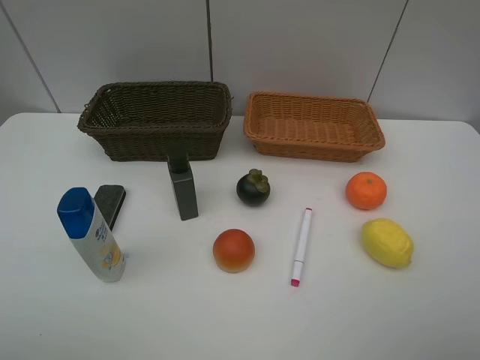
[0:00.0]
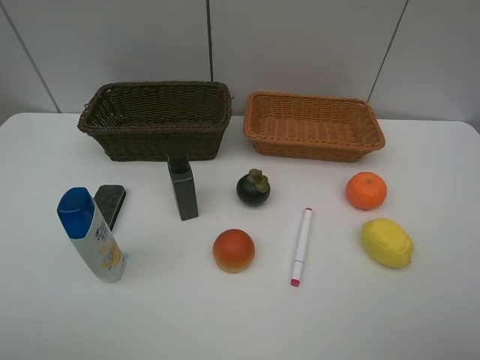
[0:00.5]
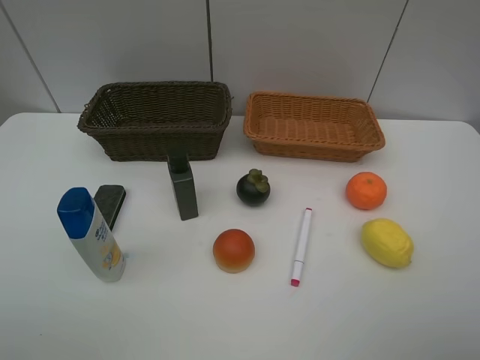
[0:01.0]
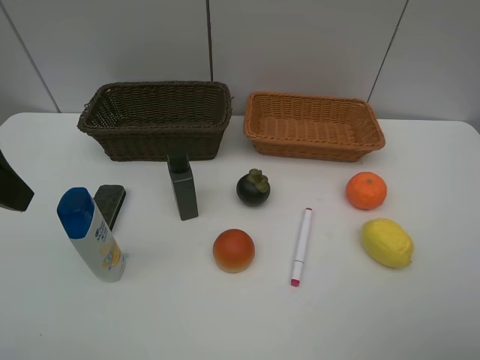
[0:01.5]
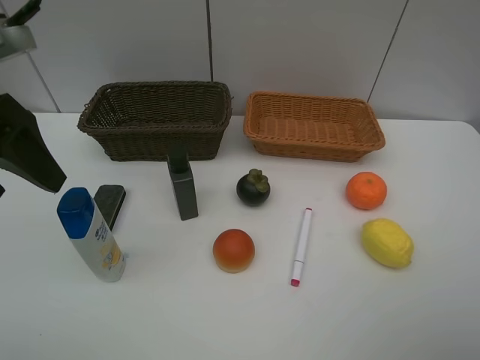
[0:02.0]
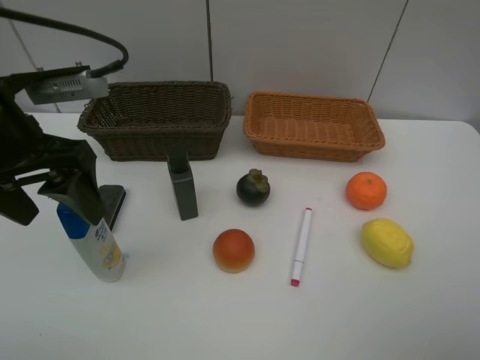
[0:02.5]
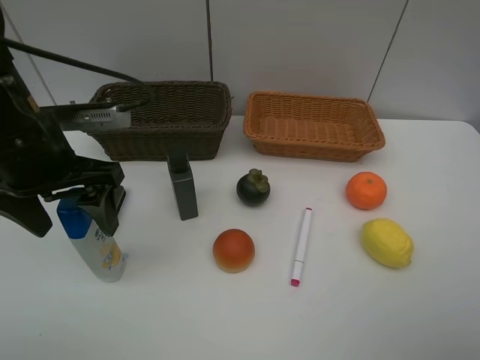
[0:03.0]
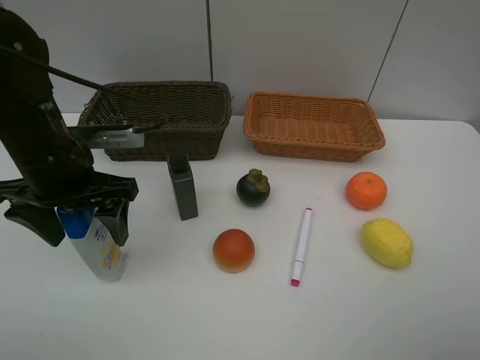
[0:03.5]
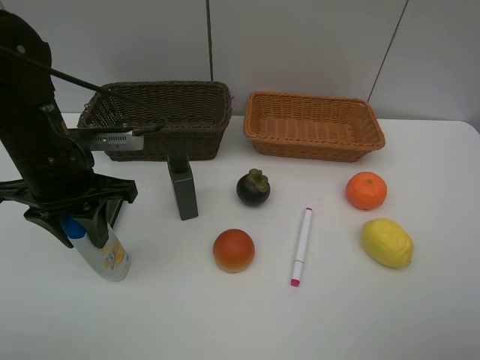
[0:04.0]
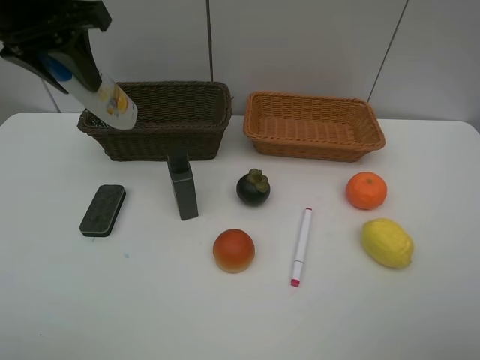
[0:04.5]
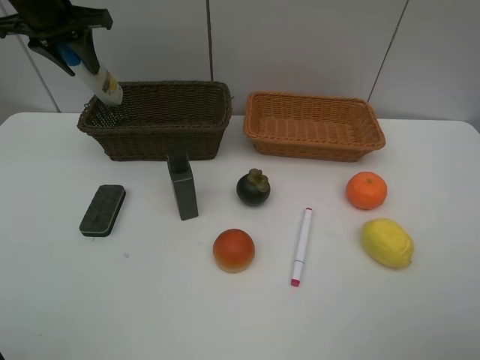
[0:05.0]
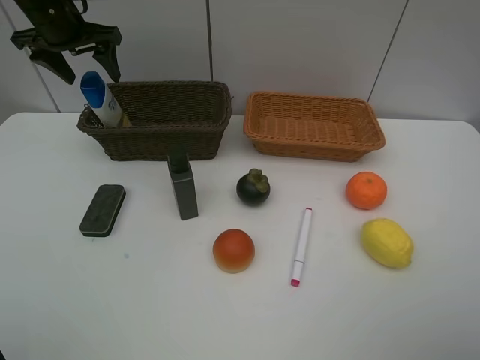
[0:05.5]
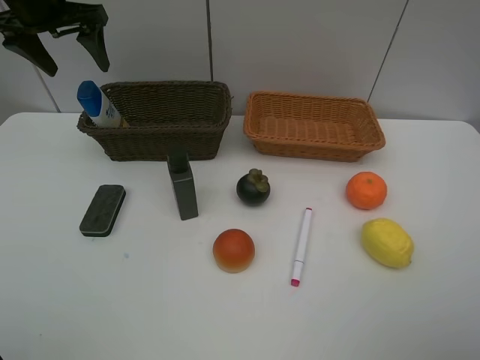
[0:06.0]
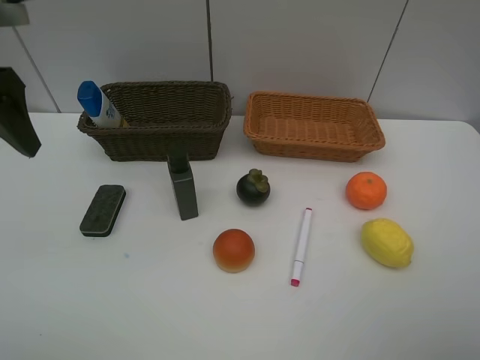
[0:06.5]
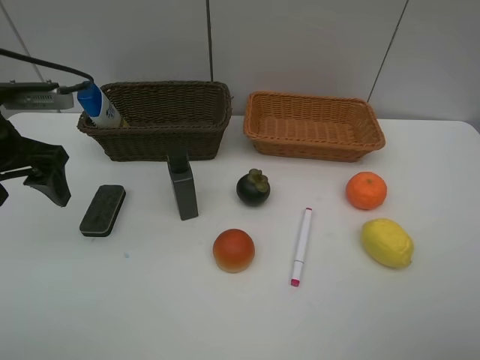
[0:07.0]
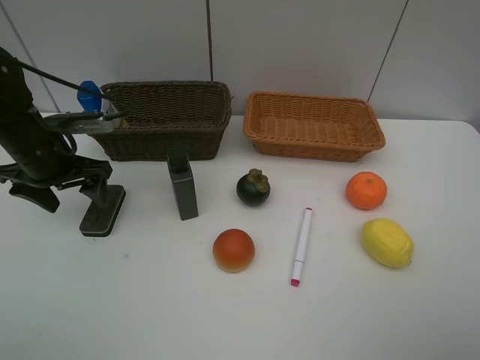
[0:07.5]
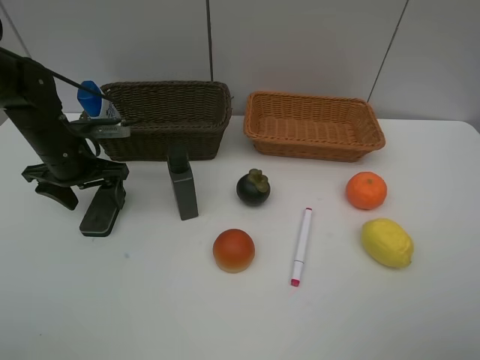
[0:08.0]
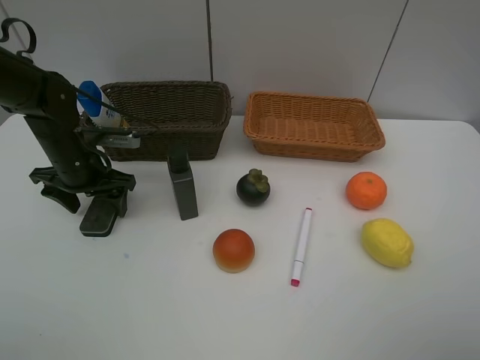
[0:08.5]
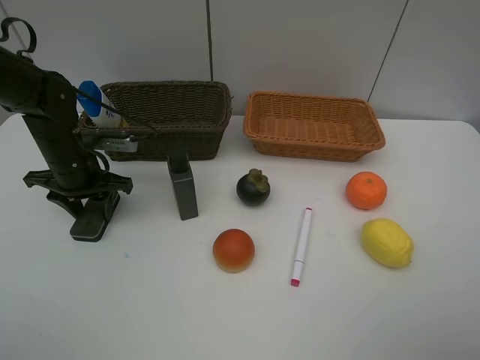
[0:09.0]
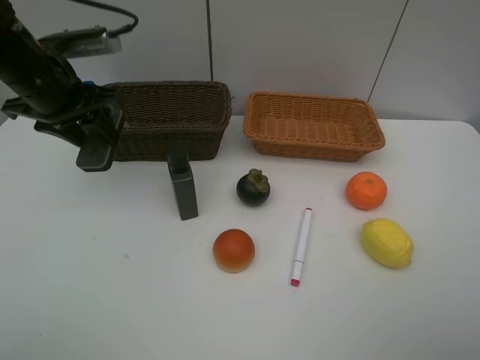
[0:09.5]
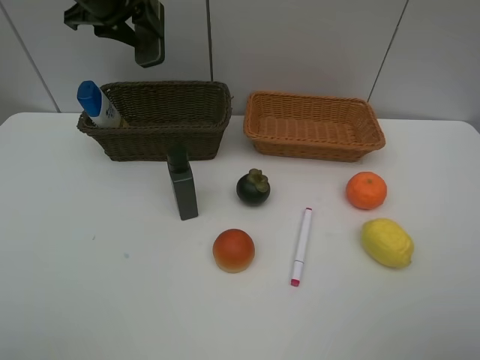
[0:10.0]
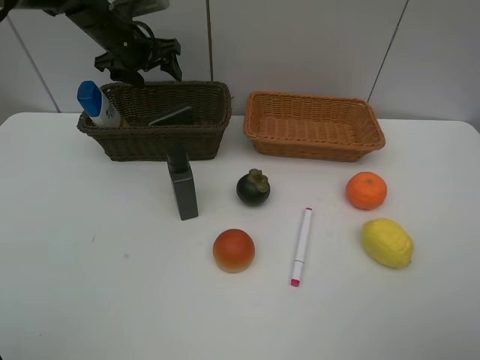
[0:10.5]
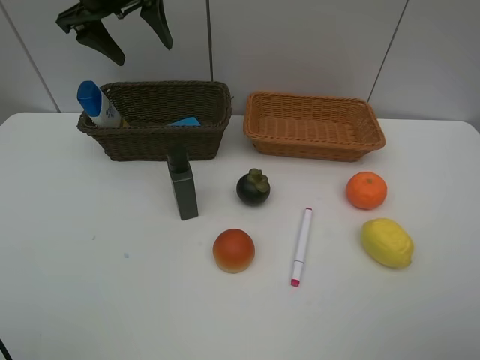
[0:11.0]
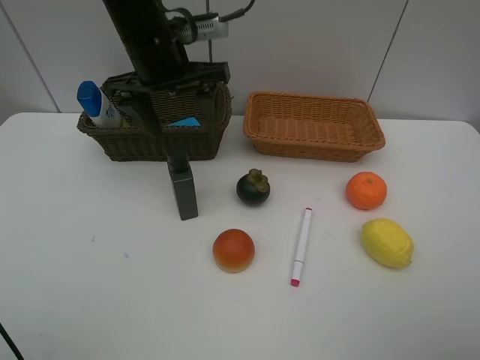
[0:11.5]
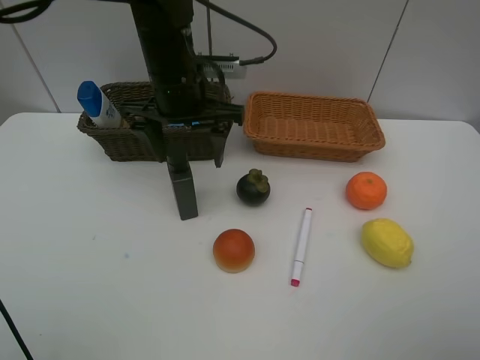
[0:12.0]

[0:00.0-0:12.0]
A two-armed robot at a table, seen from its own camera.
Task of the whole recording: Place multiple objects separately in different baskets.
Step, 0:00.0 to 0:04.0: Pick up the shampoo with left gripper.
Step, 0:04.5 to 0:05.5: Place the shampoo in the dark basket with left gripper.
Step, 0:06.0 to 0:09.0: Pick up blackboard eraser with left gripper.
Step, 0:09.5 to 0:10.5: Place the blackboard eraser in the dark basket with left gripper.
0:00.0 to 0:02.0: The left gripper moves forward, roughly 20 cm.
0:02.0 to 0:04.0: The left gripper shifts some 10 cm downward and to the right, and closes its fingers.
0:04.0 to 0:06.0: The left gripper travels forward and upward by about 20 cm, and opens.
0:06.0 to 0:08.0: The left gripper heads downward and backward, covering roughly 20 cm.
0:08.0 to 0:10.0: The left gripper heads upward and forward, covering about 20 cm, and closes its fingers.
0:10.0 to 0:12.0: The left gripper goes roughly 20 cm to the right, backward and downward, and opens its fingers.

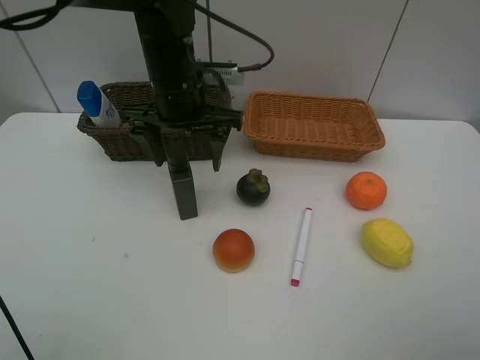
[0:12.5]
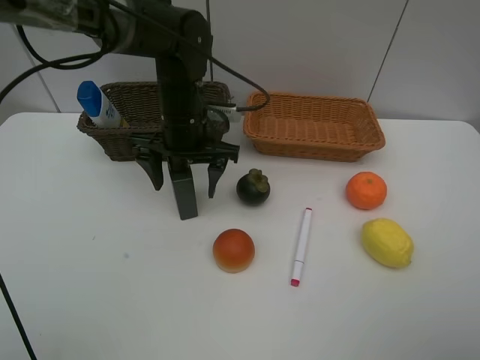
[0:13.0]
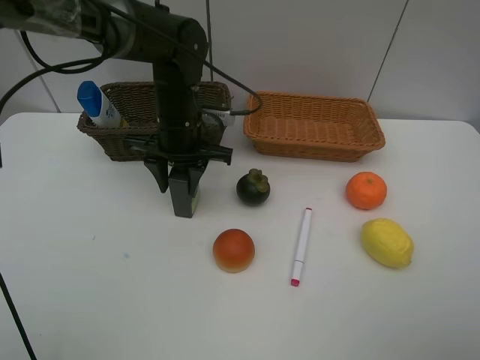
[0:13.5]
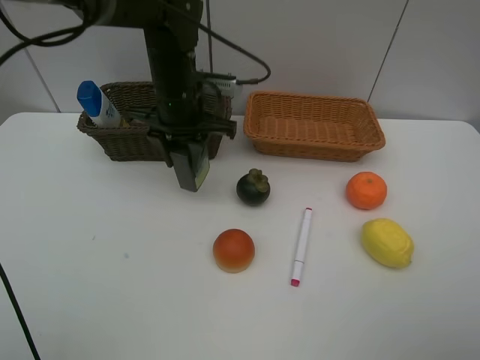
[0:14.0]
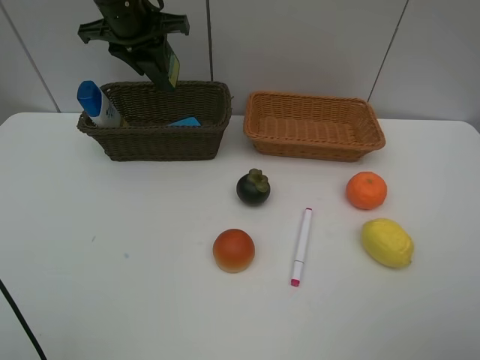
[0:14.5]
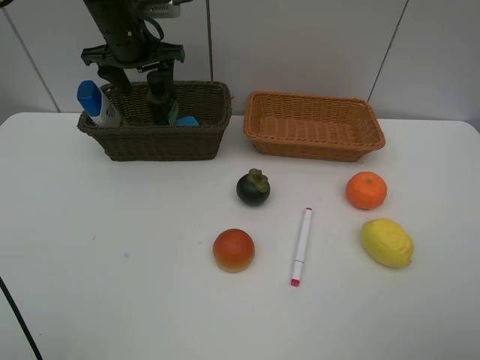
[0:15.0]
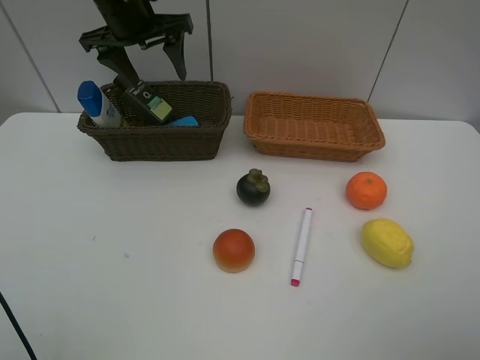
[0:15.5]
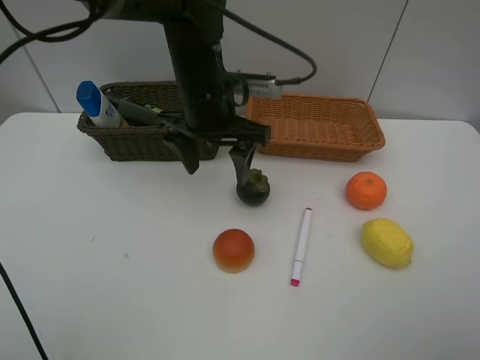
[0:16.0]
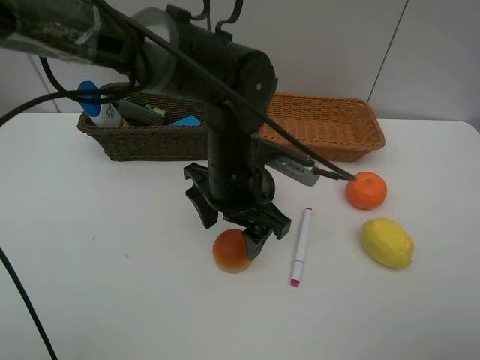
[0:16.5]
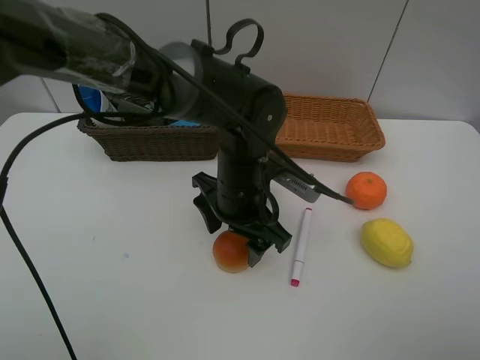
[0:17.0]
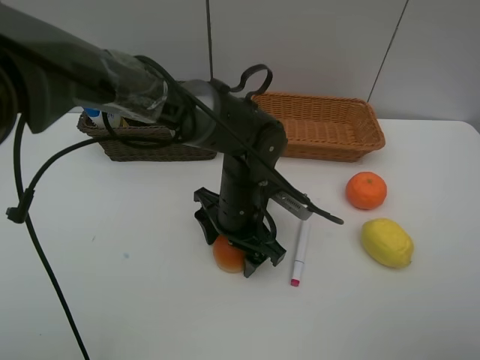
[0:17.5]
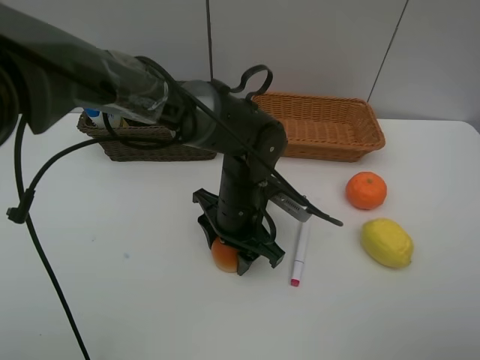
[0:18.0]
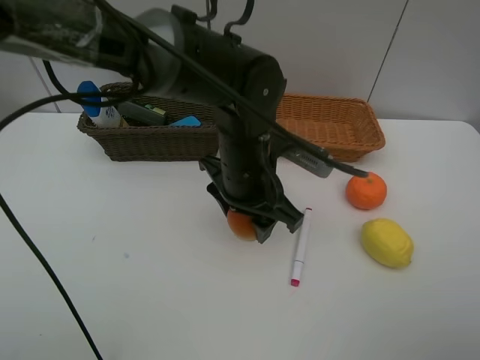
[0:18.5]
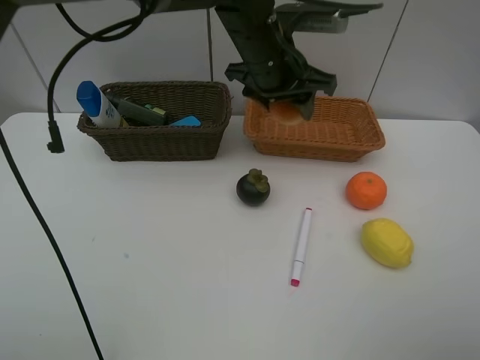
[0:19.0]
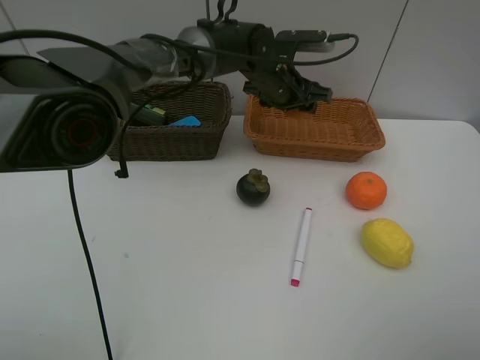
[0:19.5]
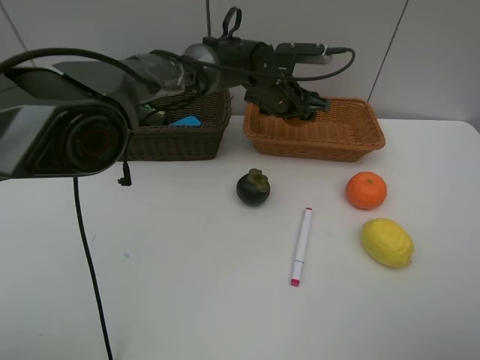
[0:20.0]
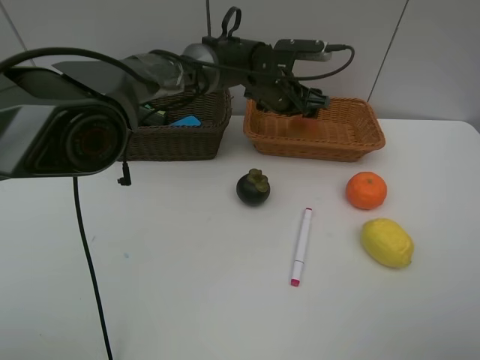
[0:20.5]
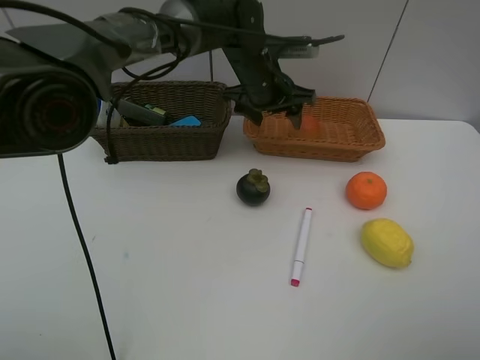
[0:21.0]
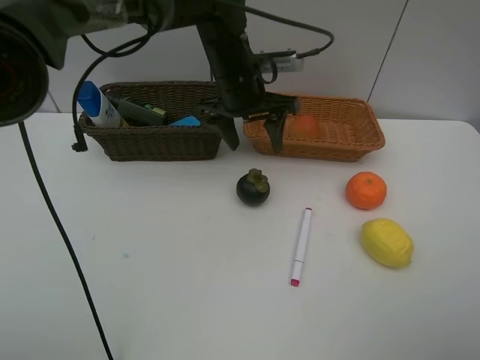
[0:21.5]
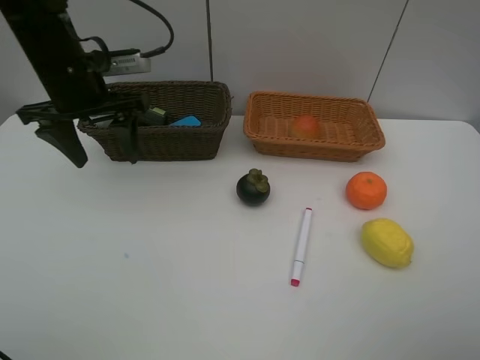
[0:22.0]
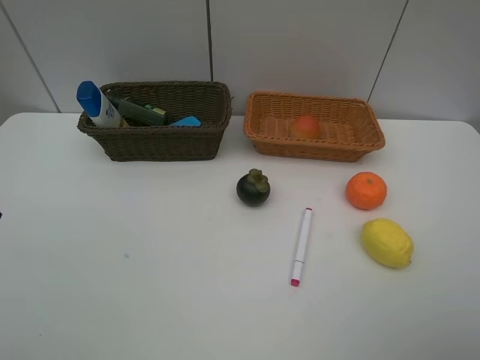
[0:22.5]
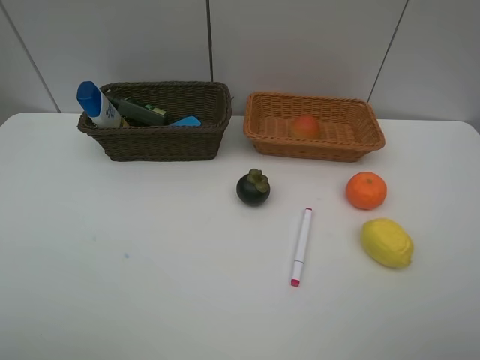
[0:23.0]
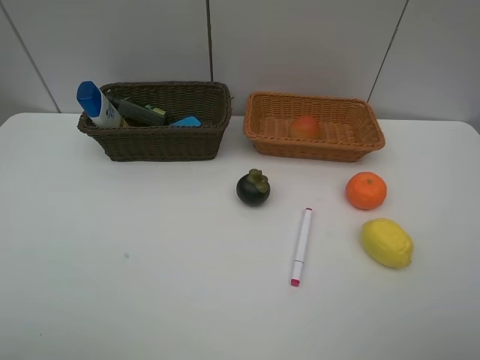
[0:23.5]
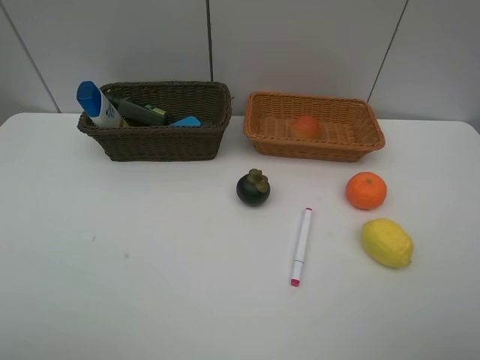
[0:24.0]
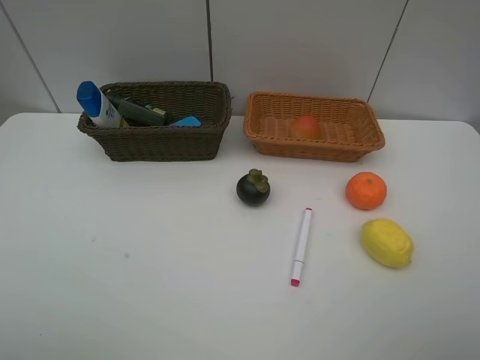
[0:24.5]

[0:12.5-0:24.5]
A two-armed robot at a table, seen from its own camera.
Task of the whole recording: Place multiple objects separately in different baskets.
Step, 0:14.5 to 0:15.0: Place the hard facial cleanser in the dark basket with left gripper.
Step, 0:15.5 to 0:18.0: Pick up egg yolk pastry with left gripper.
Step, 0:18.5 to 0:20.5: Place the egg yolk pastry in the light basket with left gripper.
0:12.5 to 0:14.5: The left gripper heads forward, to the left and upward, covering approximately 15 cm, and closes.
0:14.5 to 0:16.5: The left gripper shifts some 30 cm backward, to the right and downward, and opens.
0:16.5 to 0:18.5: The left gripper goes downward and returns, some 5 cm each way, and closes its fingers.
0:18.5 to 0:20.5: The left gripper shifts approximately 20 cm forward.
0:20.5 to 0:22.5: The left gripper travels to the left, backward and upward by some 50 cm.

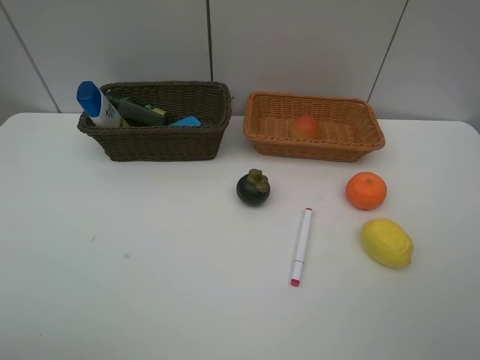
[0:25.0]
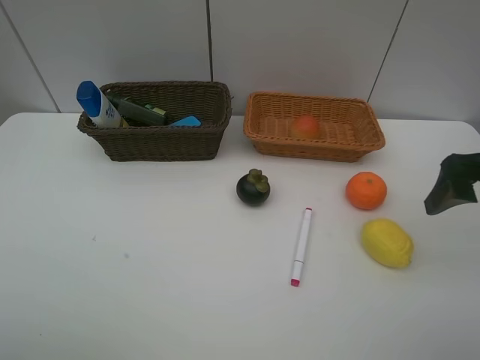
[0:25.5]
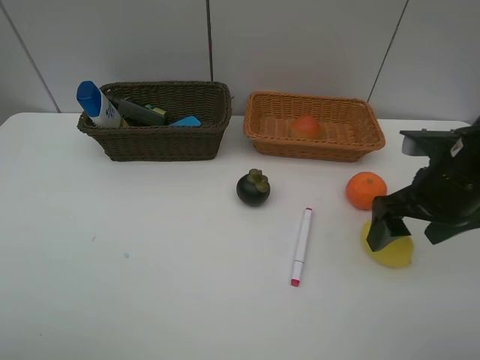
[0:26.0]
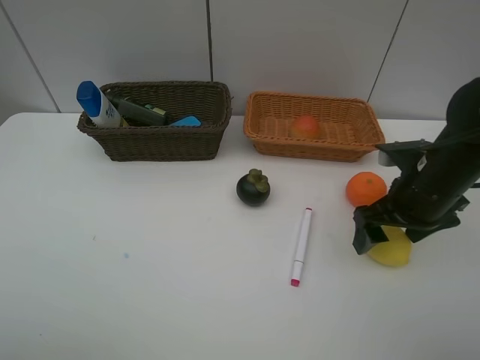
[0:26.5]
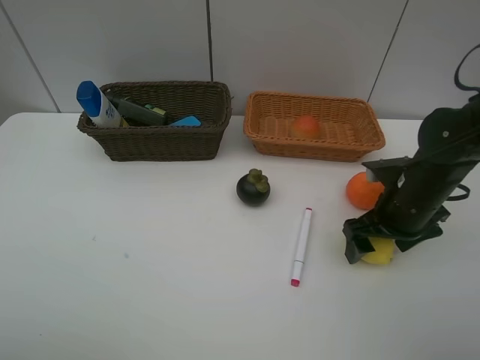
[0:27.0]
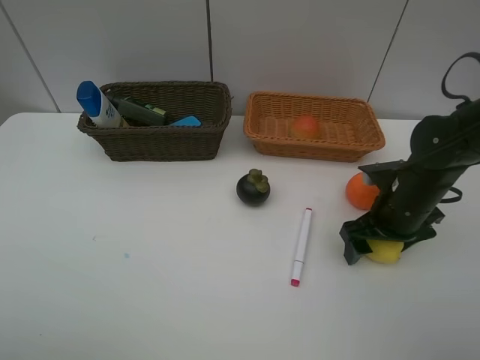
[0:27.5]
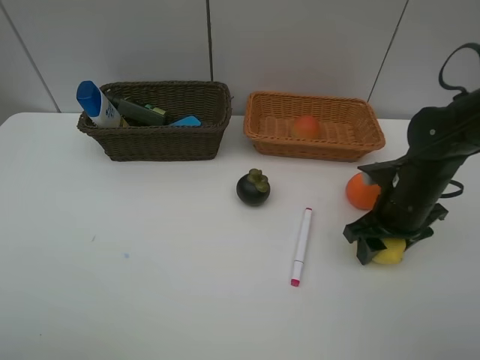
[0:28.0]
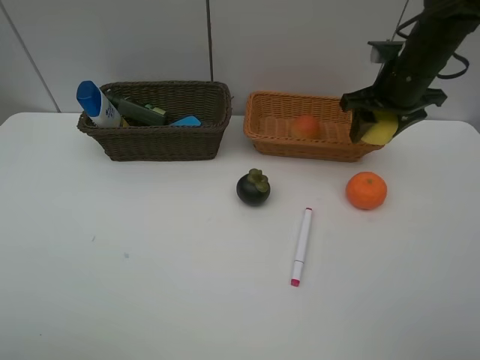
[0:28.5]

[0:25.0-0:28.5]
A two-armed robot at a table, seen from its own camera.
Task of the whole recording: Place multiple objects separately in different baskets.
Step, 0:25.0 to 0:28.0: Pick up the lemon with right gripper.
0:25.0 to 0:27.0: The right gripper shifts about 25 cm downward, forward and to the left.
0:27.0 to 0:28.5: The right gripper is displaced forward and upward by approximately 20 cm, and closes up.
